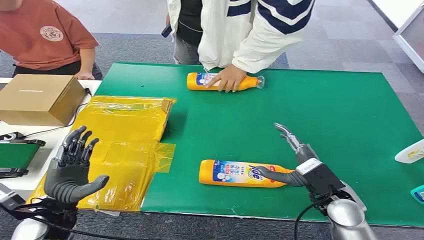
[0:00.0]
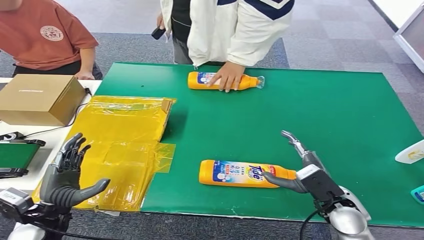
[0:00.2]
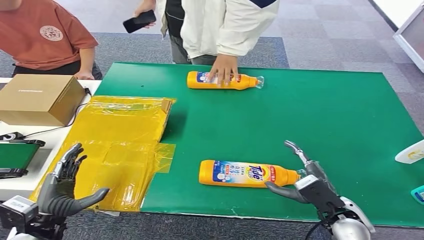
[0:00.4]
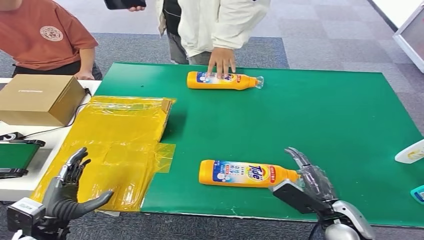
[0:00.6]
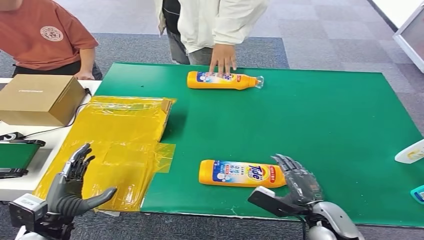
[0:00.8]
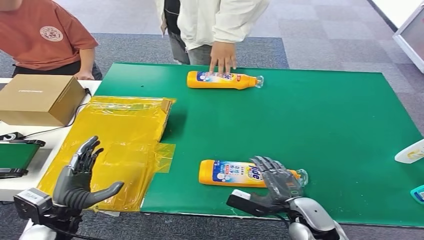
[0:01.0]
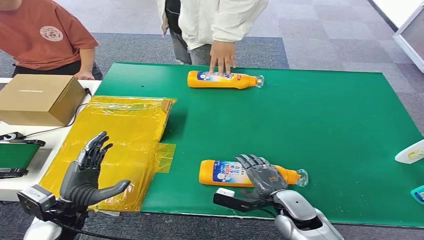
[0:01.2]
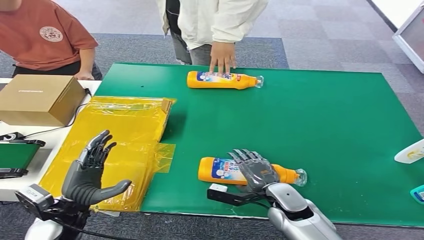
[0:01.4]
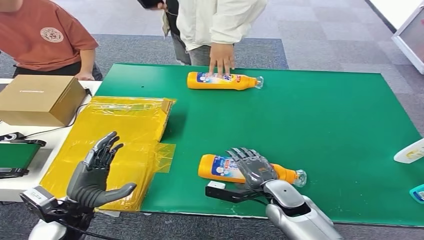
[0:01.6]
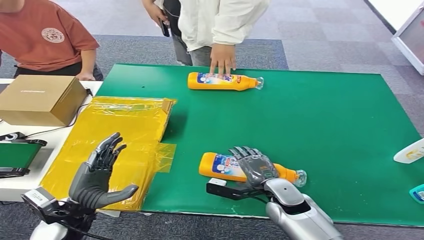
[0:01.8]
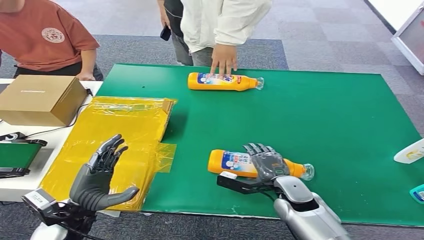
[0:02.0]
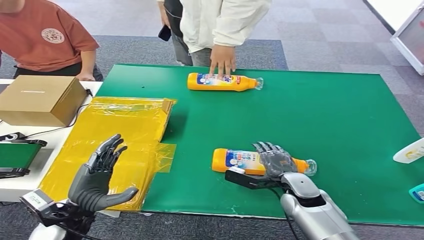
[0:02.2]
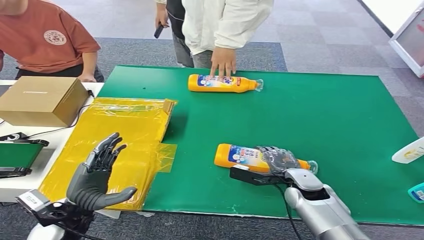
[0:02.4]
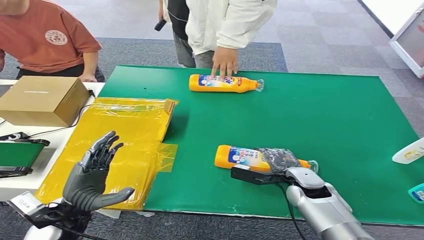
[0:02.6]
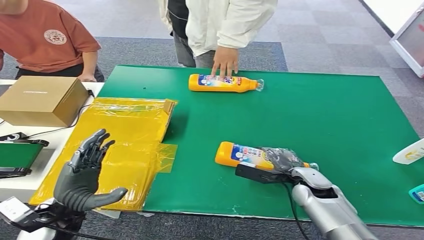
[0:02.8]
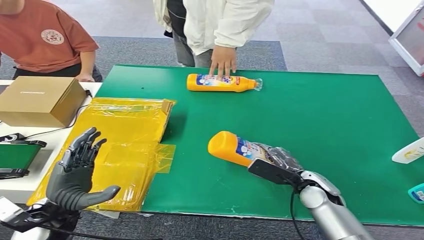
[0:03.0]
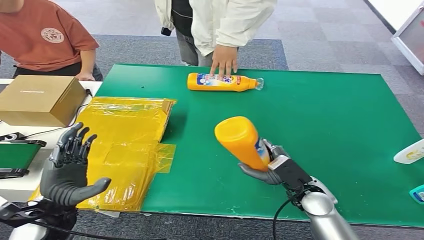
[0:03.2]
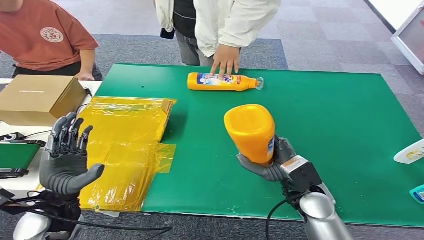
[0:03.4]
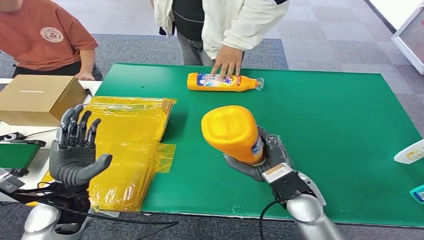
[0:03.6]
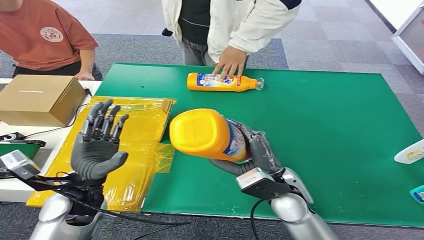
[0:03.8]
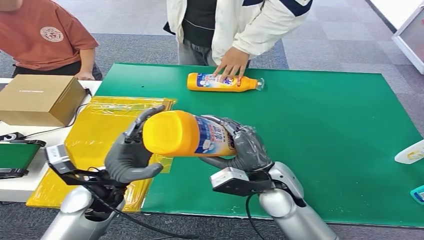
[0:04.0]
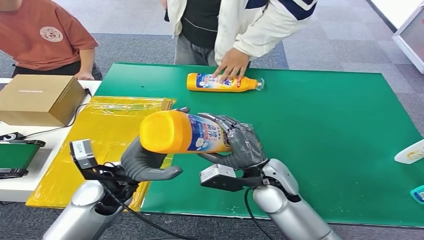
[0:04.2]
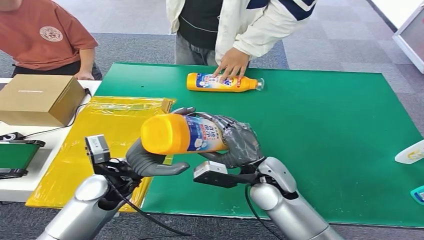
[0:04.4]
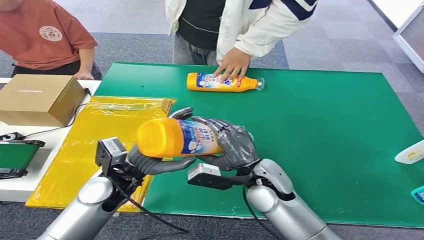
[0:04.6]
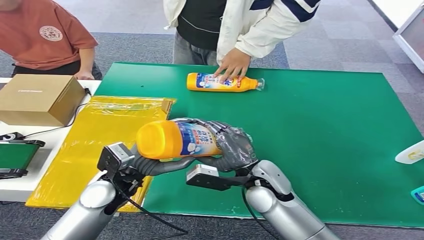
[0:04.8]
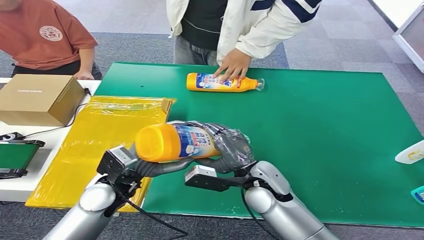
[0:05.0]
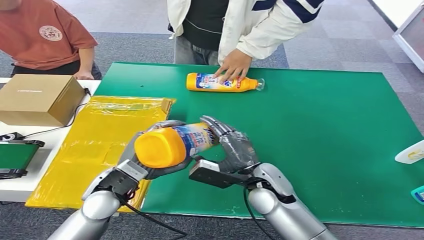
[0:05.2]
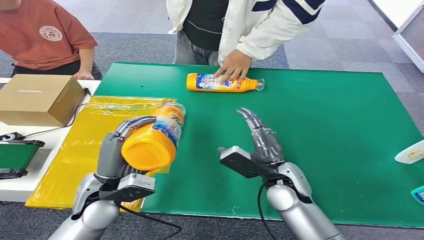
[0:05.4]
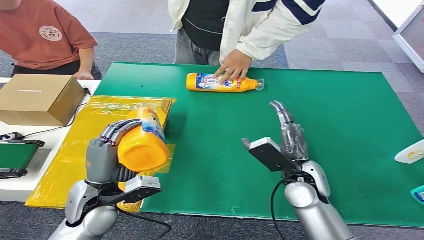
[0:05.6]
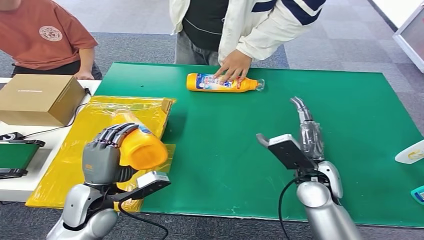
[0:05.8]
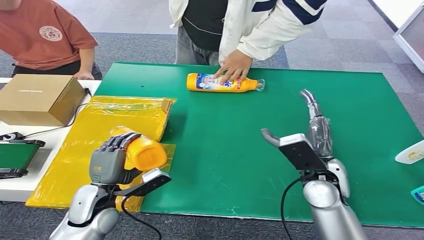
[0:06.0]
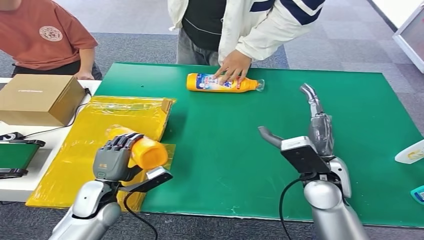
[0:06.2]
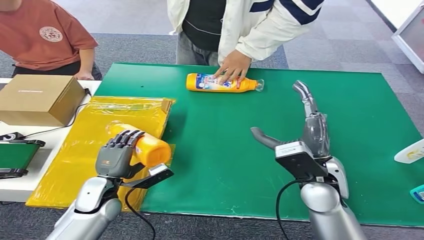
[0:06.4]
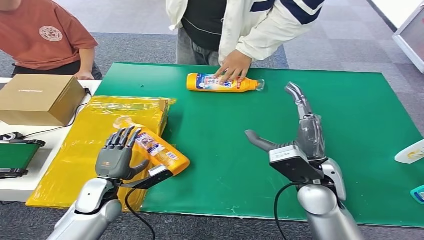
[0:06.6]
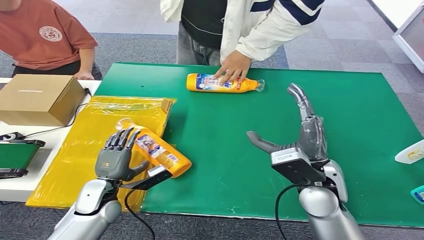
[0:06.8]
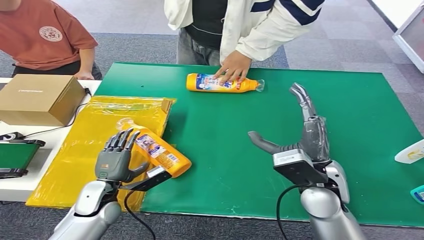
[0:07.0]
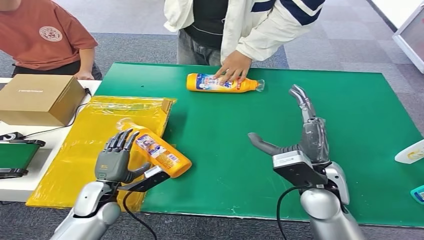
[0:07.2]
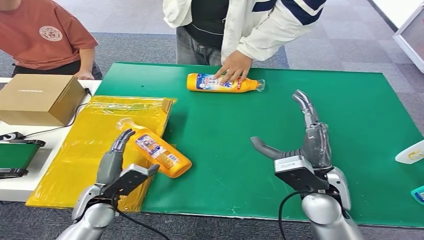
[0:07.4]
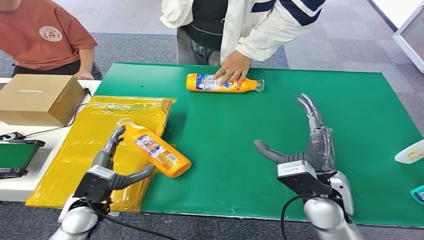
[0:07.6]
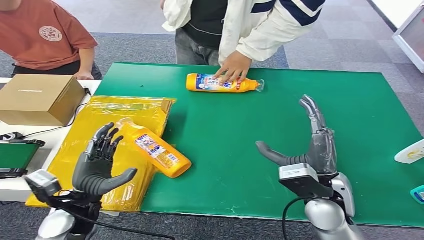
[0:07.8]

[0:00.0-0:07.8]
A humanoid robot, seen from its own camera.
Step, 0:00.0 to 0:03.6: Pick up the bottle from the table.
Step, 0:03.8 to 0:07.8: Turn the bottle to the front side.
0:06.2 to 0:07.8: The left hand heads upward, covering some 5 cm.
